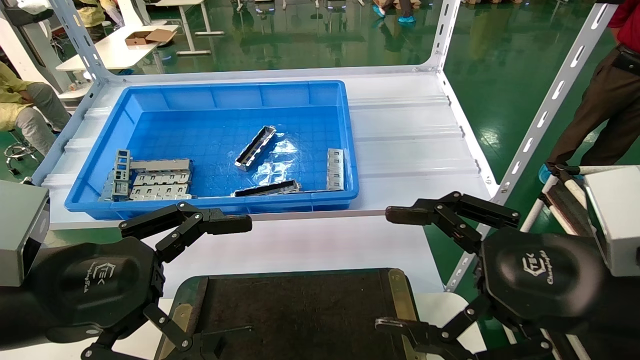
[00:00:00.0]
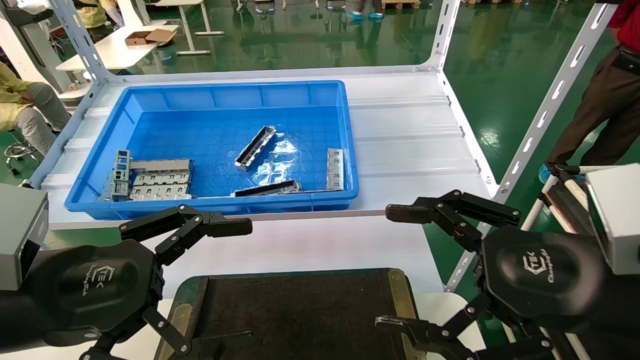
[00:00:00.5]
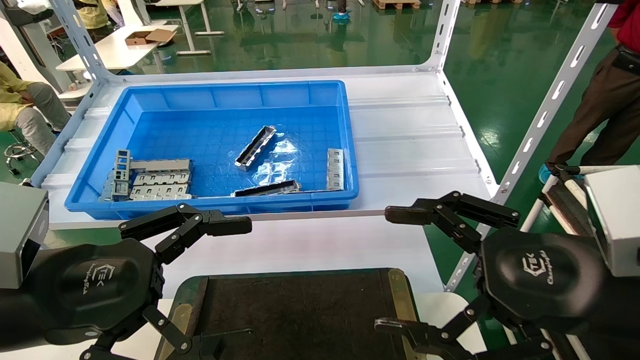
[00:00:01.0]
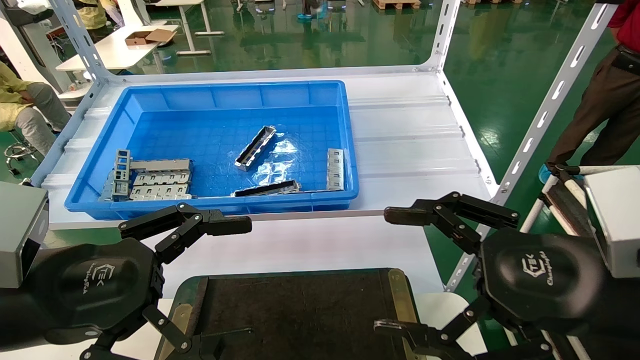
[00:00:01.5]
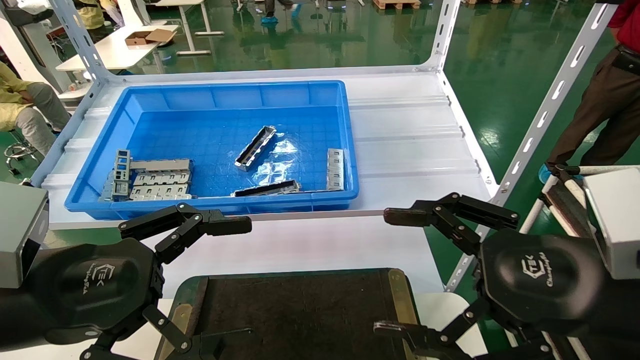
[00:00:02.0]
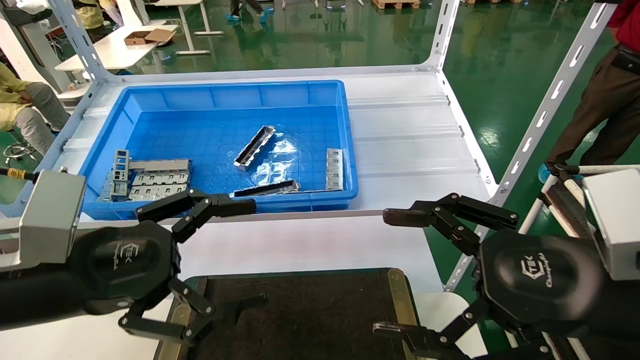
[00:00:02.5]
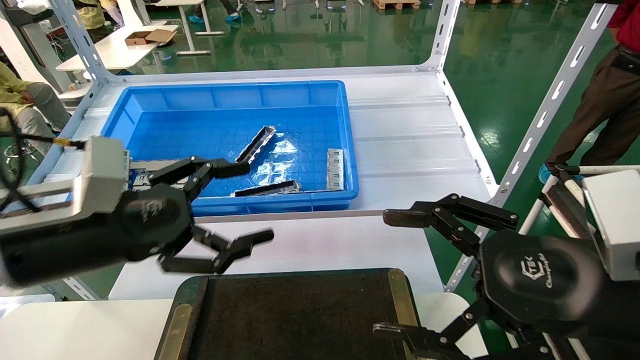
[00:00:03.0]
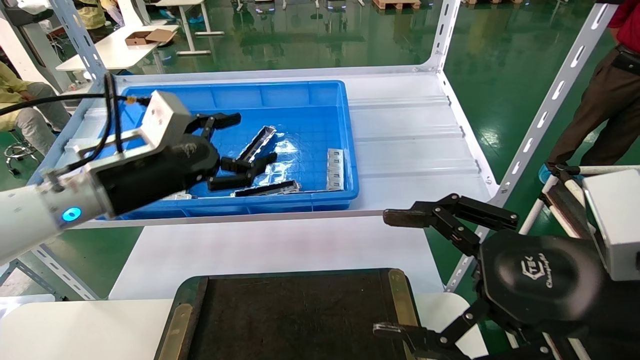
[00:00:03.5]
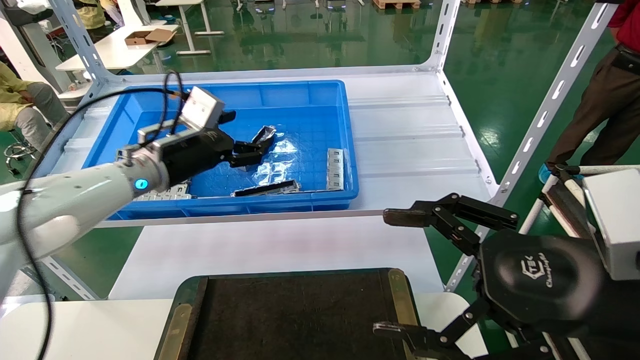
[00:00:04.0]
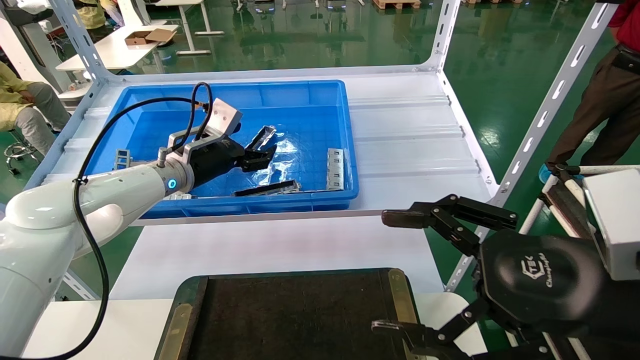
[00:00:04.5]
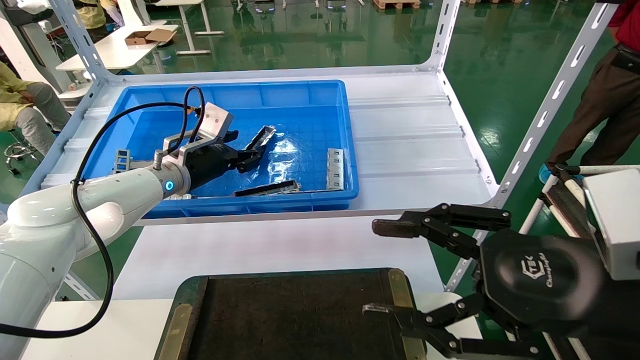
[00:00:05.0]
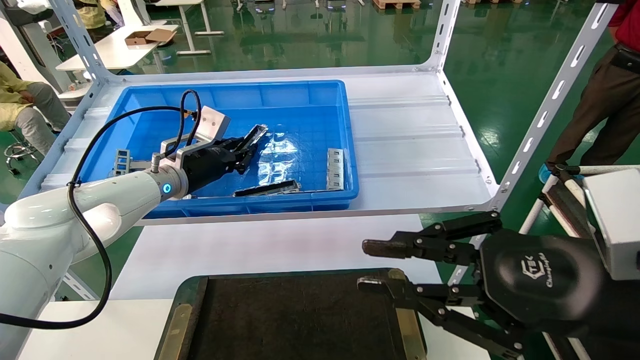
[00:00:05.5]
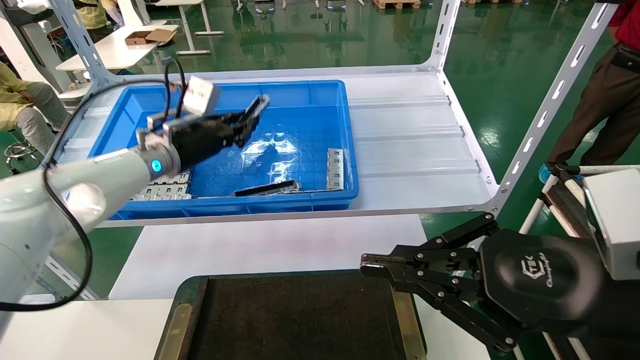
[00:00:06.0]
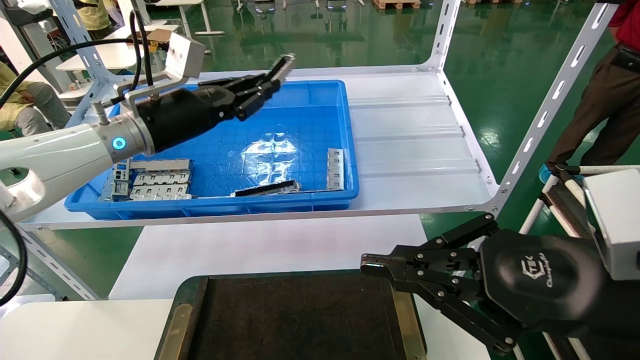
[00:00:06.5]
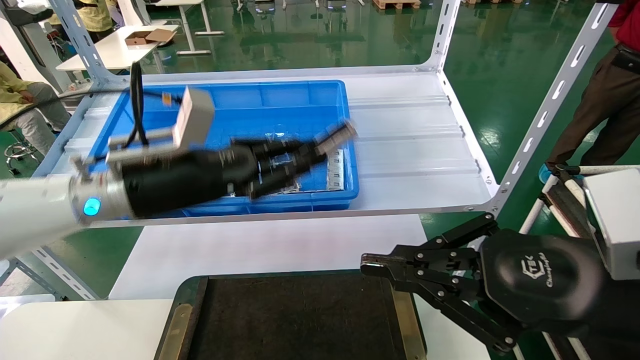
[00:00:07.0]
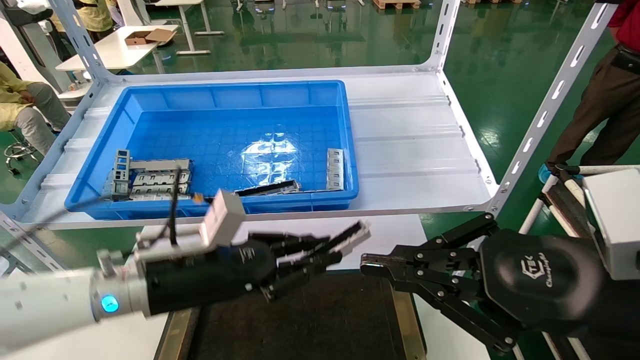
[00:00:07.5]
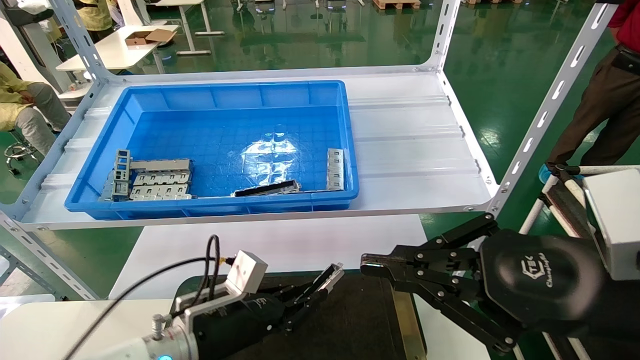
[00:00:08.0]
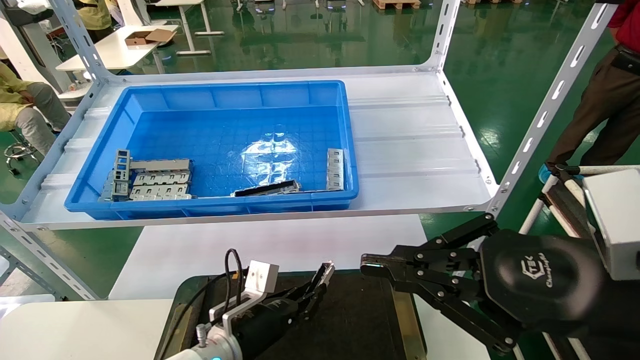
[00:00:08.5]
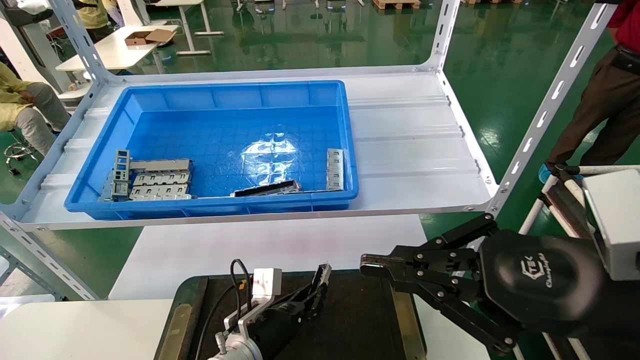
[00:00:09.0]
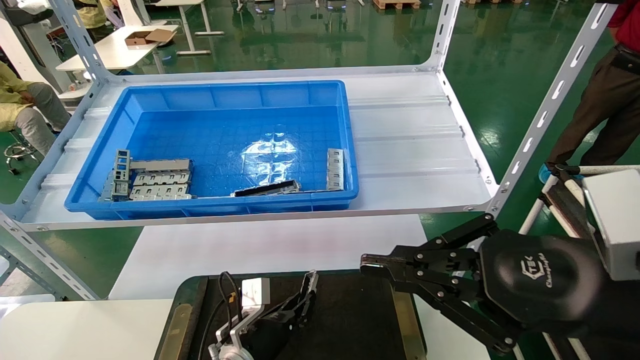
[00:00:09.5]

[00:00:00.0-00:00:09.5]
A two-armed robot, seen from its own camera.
Task of the whole recording: Grasp the part with one hand and place it on the black container.
Step, 00:00:03.0 to 00:00:06.0: Pick up the front USB bracket from the feeding area.
00:00:00.0 to 00:00:02.0: Neither gripper changes place.
00:00:02.0 to 00:00:04.0: The left gripper travels forward by about 25 cm.
00:00:04.0 to 00:00:05.5: The right gripper closes its fingers, while the left gripper moves about 5 cm, and closes its fingers.
00:00:05.5 to 00:00:07.5: The left gripper heads backward and downward, covering approximately 20 cm.
00:00:07.5 to 00:00:09.5: The left gripper goes roughly 20 cm downward.

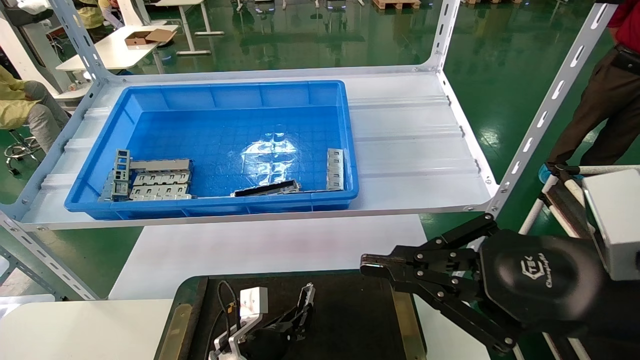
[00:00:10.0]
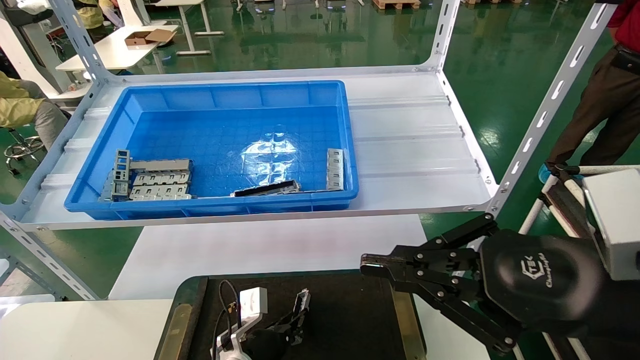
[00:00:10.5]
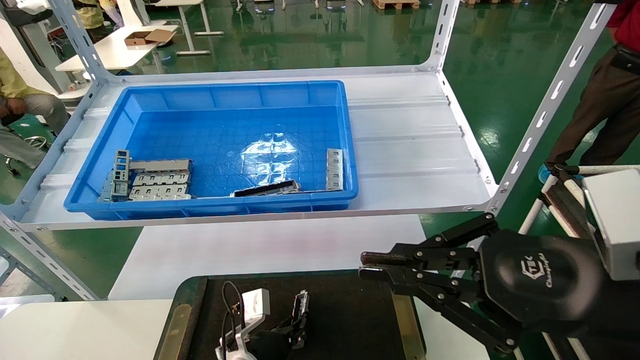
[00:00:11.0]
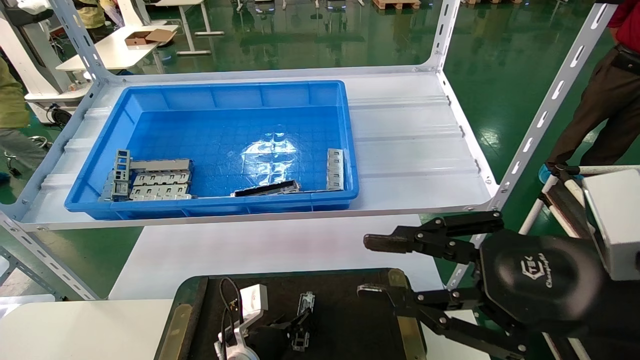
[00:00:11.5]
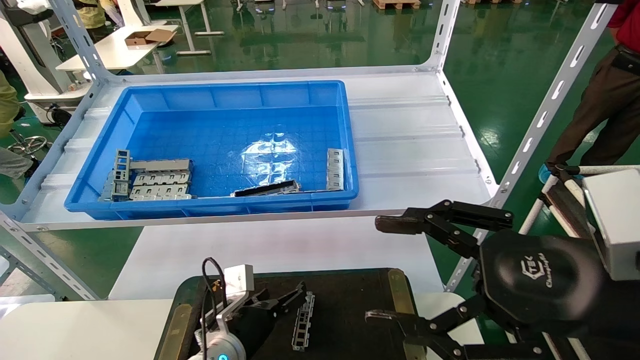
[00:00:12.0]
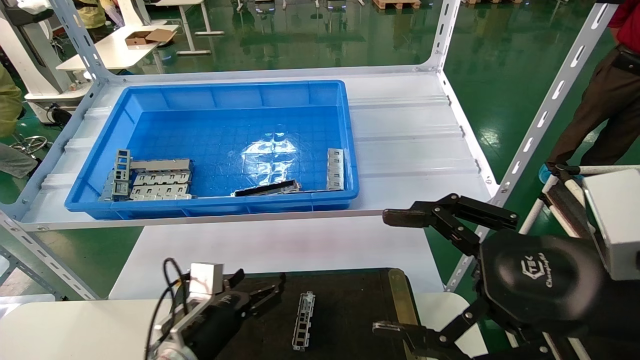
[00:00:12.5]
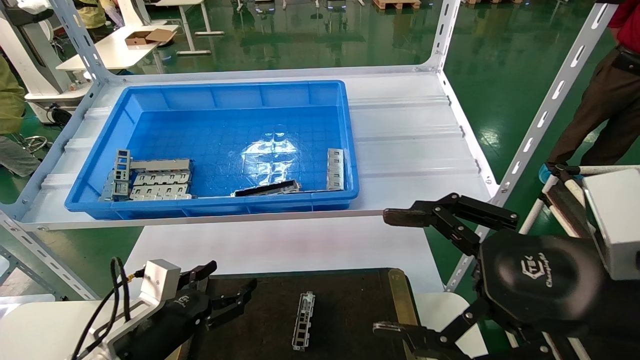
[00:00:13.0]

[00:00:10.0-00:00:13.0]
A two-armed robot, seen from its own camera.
Task of the whole recording: Grasp the part with one hand and place it on the black container.
00:00:10.0 to 00:00:11.5: The grippers stay close to where they were, moving slightly.
00:00:11.5 to 00:00:13.0: The right gripper opens; the left gripper travels to the left, upward and backward by about 15 cm, and opens its fingers.
